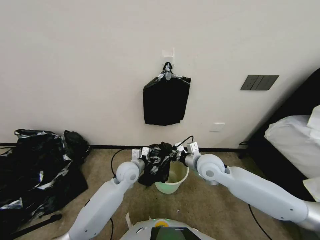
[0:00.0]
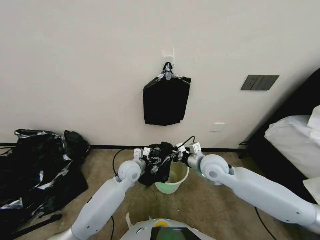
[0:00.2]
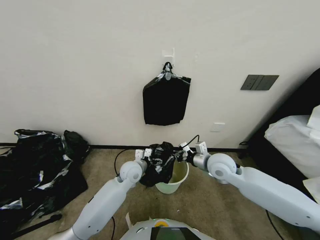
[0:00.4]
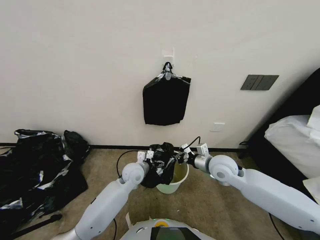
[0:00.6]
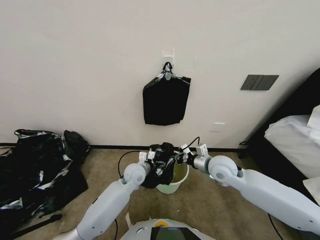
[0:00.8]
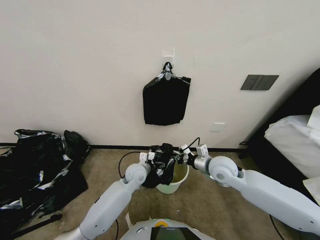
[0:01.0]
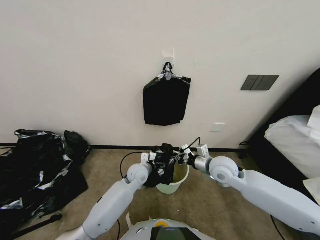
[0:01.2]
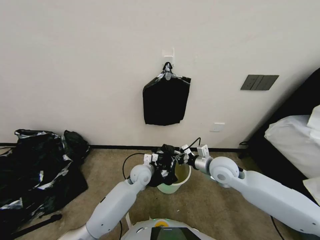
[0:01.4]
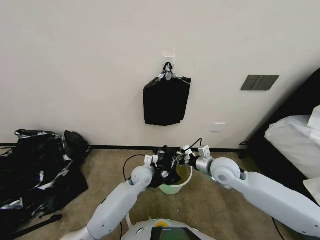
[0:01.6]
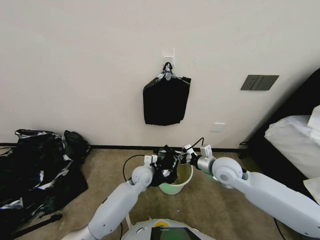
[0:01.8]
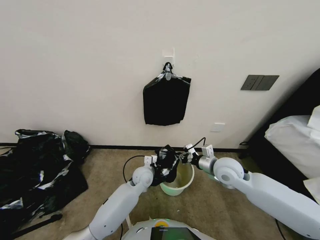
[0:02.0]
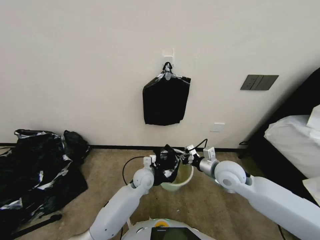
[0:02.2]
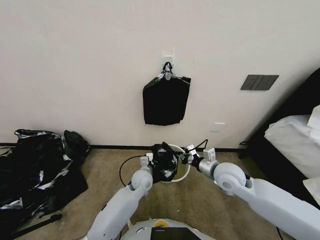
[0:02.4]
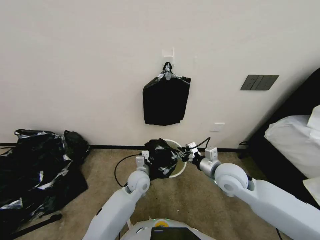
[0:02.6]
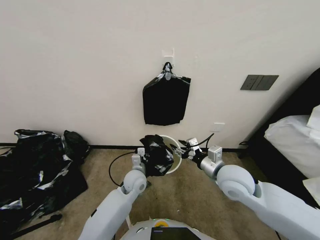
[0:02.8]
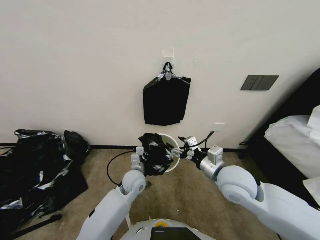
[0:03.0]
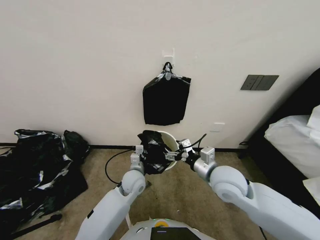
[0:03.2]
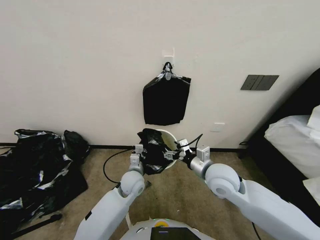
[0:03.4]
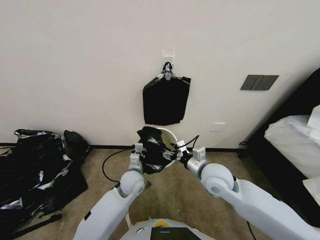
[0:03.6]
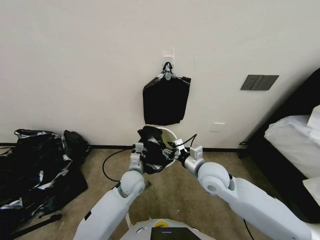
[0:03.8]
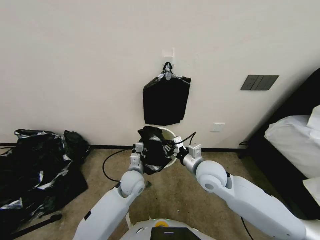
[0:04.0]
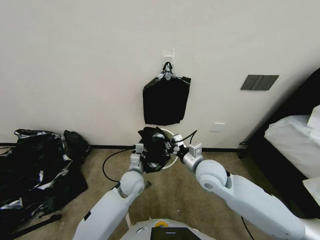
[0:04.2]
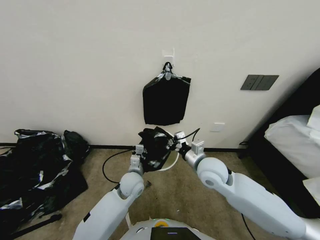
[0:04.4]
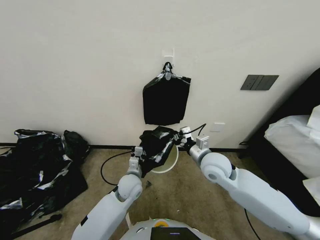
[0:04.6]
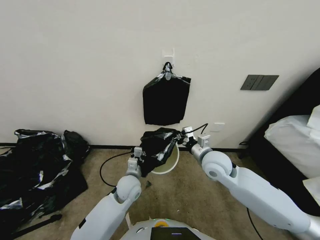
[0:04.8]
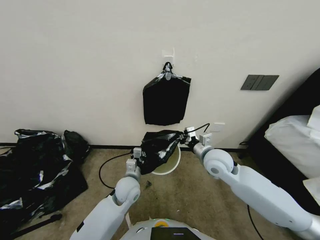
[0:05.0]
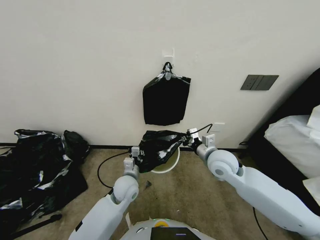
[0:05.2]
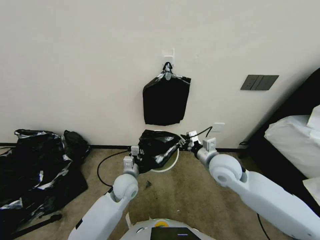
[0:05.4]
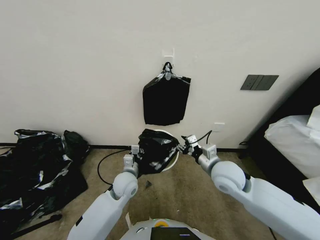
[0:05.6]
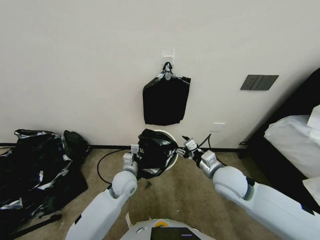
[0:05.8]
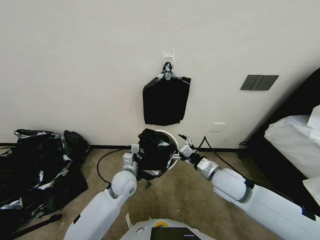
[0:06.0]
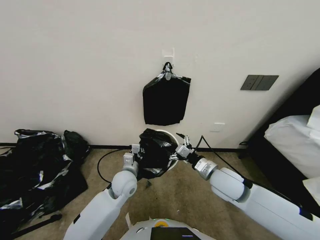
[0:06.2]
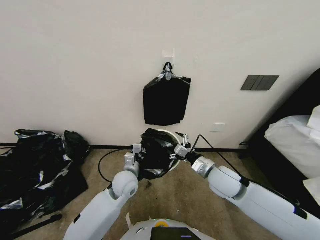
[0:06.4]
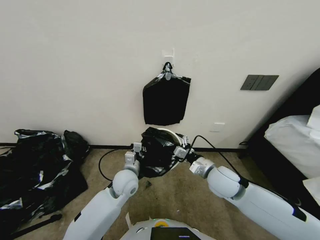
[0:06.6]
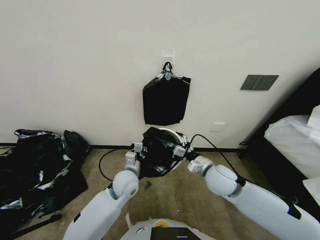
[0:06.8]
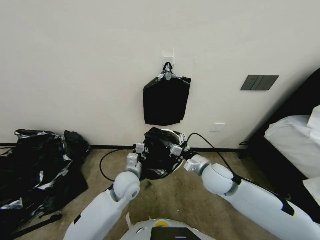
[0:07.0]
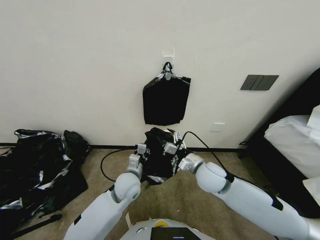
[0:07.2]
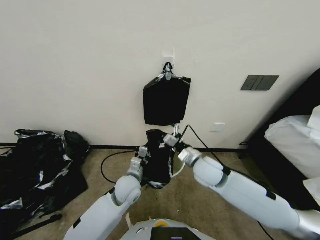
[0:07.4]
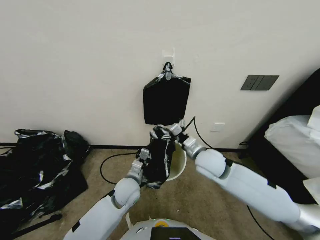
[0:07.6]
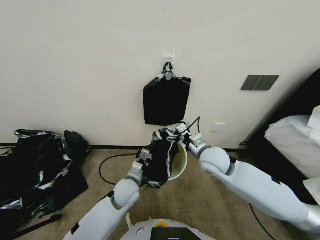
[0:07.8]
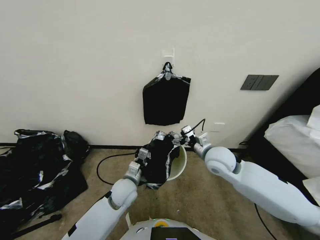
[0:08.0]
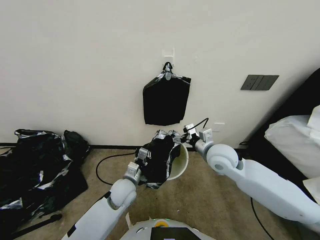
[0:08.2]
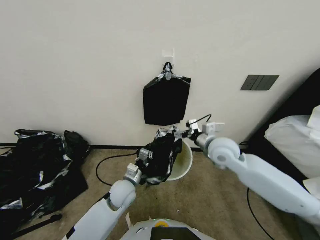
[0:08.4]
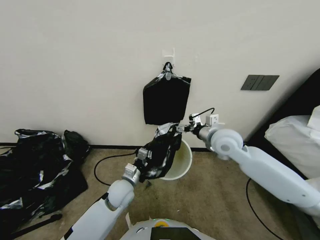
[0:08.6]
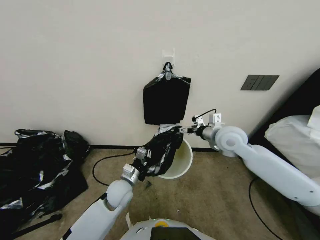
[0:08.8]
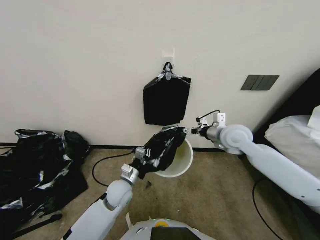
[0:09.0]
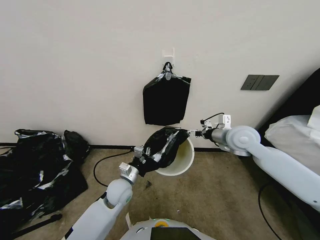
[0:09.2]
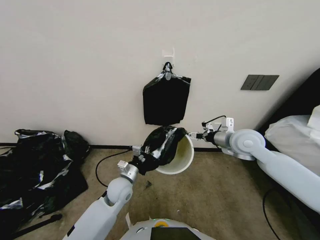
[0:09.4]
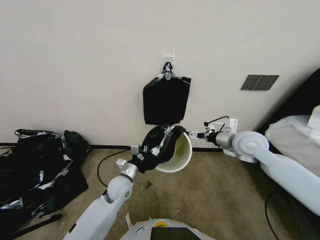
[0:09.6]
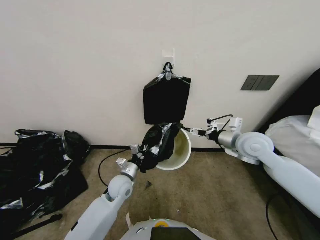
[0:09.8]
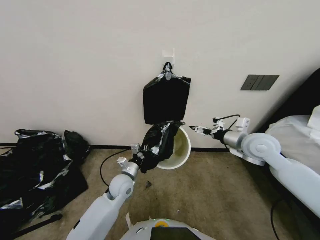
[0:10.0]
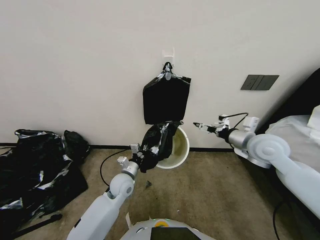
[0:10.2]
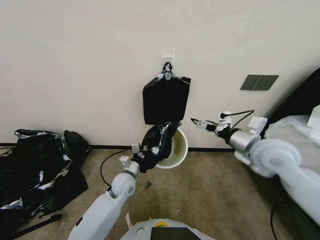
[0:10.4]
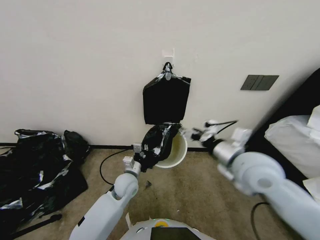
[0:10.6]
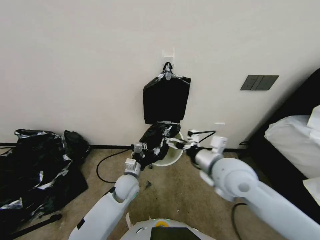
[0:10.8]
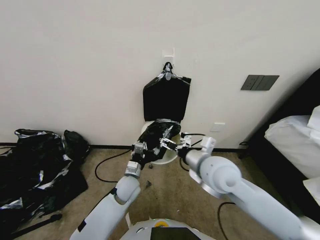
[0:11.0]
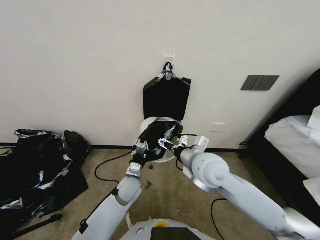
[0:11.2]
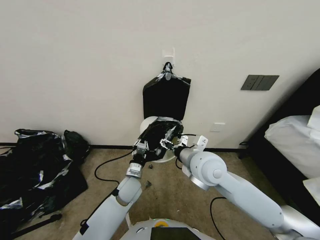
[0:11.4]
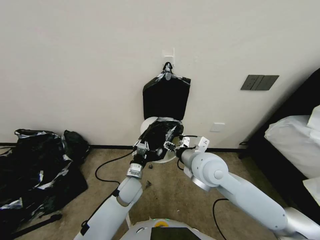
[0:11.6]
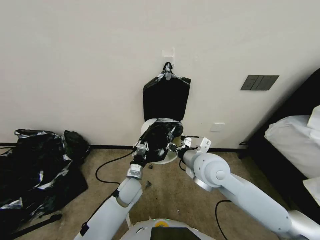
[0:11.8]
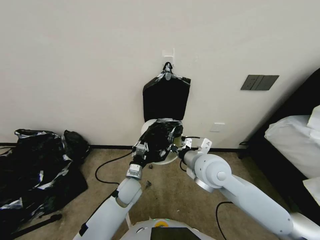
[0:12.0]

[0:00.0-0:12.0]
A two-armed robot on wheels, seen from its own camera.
Task of the whole recording: Place a trash bag onto the trash bin.
0:00.0 to 0:01.6: The grippers both shift to the right by about 5 cm. The left gripper closes its fingers.
0:01.6 to 0:03.0: The right gripper heads backward and upward, covering about 10 cm, and opens up, while the left gripper closes up.
0:03.0 to 0:04.4: The right gripper changes place by roughly 5 cm, and closes.
0:04.4 to 0:06.0: The right gripper is displaced to the right by some 5 cm, and opens.
0:06.0 to 0:07.6: The right gripper goes approximately 10 cm to the left and forward.
0:07.6 to 0:09.0: The right gripper moves to the right, upward and forward, roughly 15 cm.
0:09.0 to 0:10.4: The right gripper travels backward and to the right by about 10 cm.
0:10.4 to 0:12.0: The right gripper goes about 20 cm to the left, and closes.

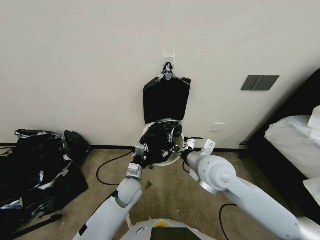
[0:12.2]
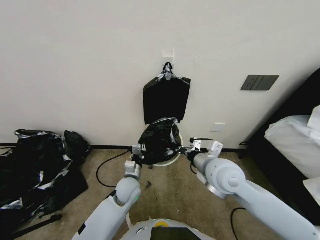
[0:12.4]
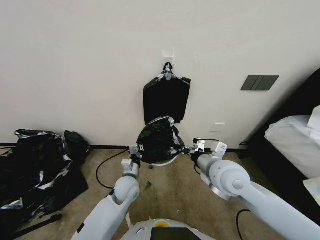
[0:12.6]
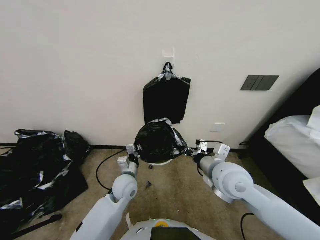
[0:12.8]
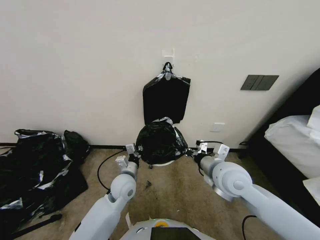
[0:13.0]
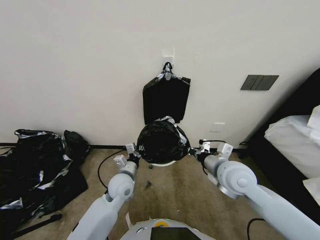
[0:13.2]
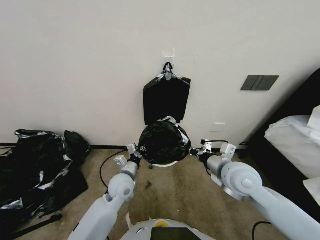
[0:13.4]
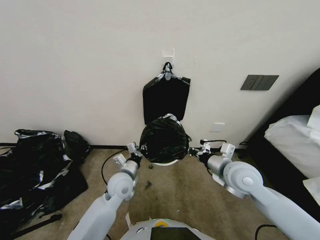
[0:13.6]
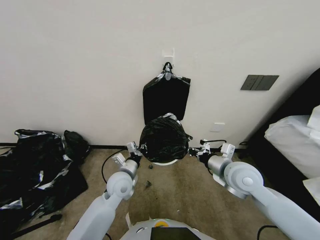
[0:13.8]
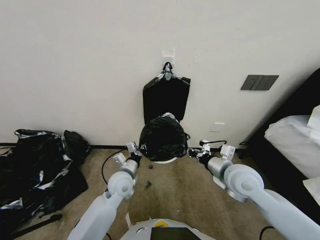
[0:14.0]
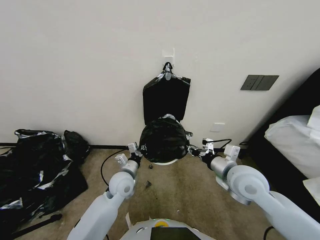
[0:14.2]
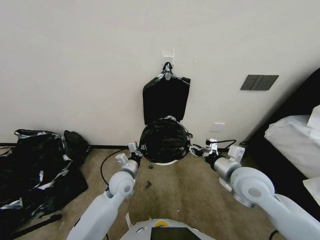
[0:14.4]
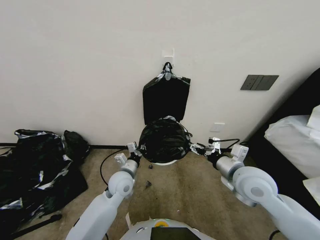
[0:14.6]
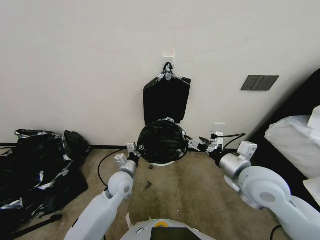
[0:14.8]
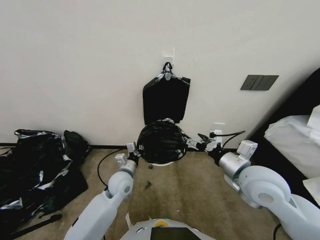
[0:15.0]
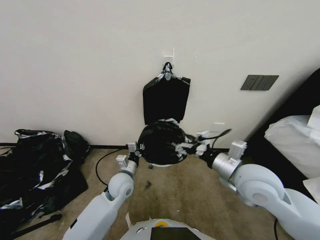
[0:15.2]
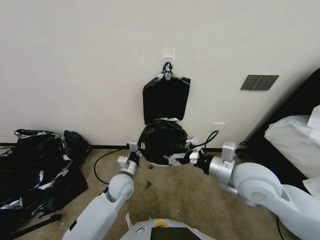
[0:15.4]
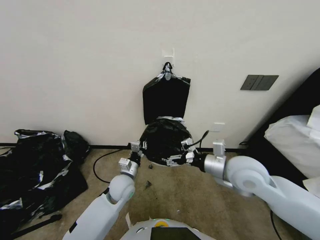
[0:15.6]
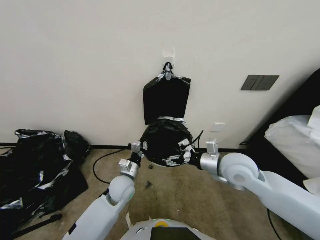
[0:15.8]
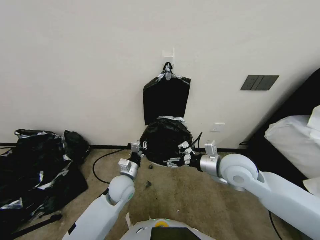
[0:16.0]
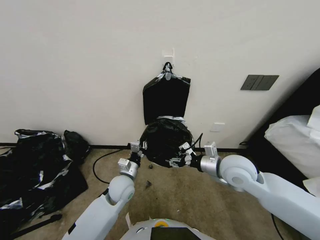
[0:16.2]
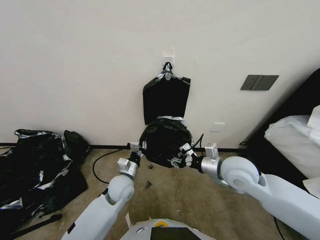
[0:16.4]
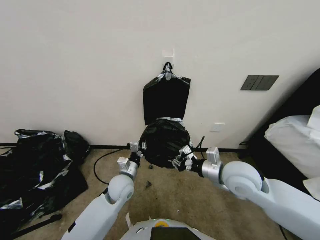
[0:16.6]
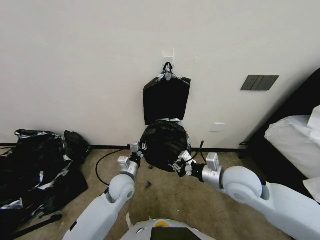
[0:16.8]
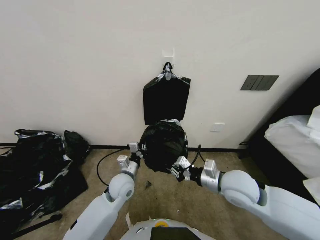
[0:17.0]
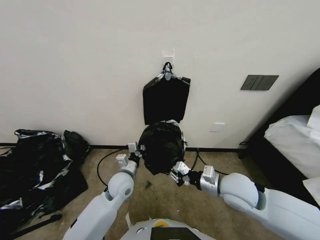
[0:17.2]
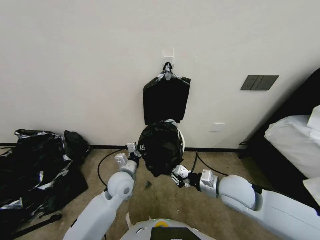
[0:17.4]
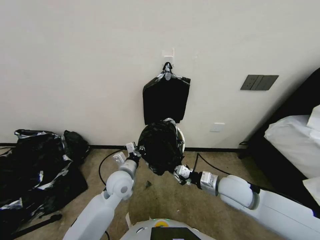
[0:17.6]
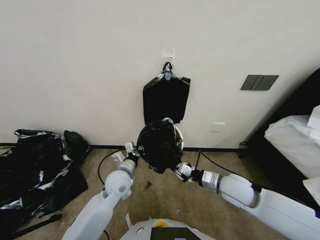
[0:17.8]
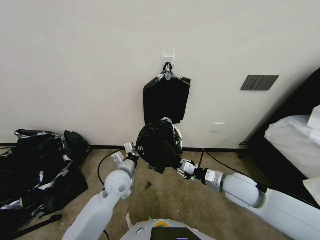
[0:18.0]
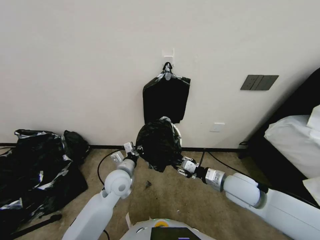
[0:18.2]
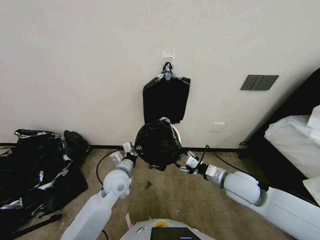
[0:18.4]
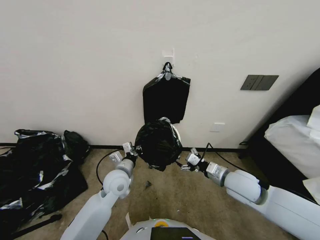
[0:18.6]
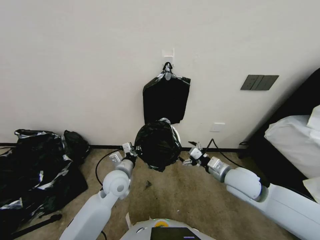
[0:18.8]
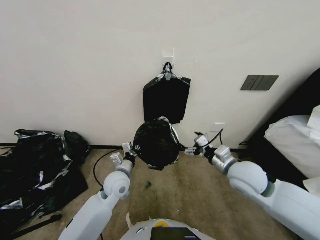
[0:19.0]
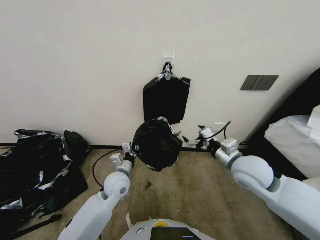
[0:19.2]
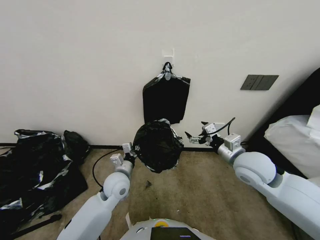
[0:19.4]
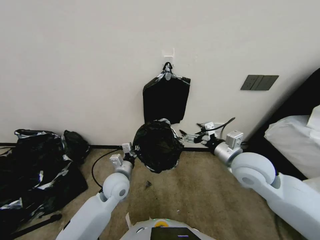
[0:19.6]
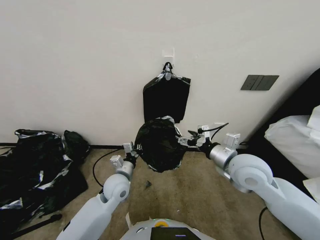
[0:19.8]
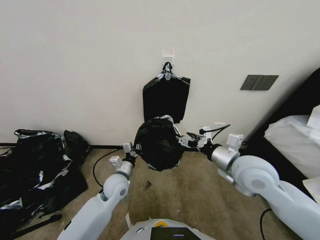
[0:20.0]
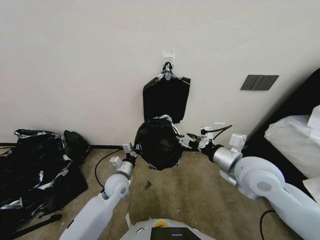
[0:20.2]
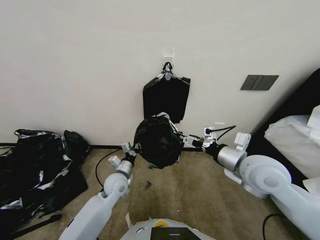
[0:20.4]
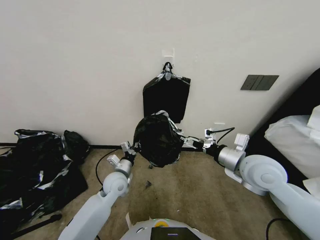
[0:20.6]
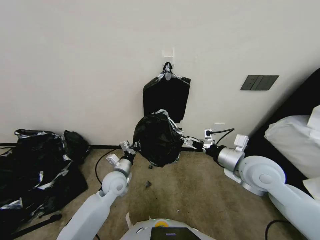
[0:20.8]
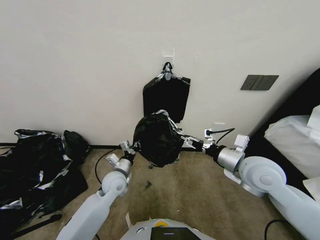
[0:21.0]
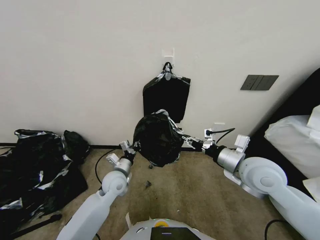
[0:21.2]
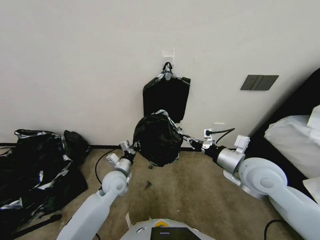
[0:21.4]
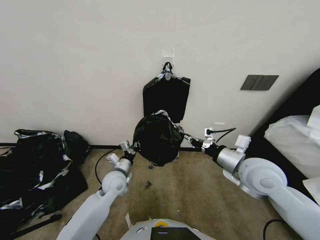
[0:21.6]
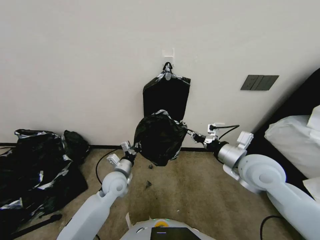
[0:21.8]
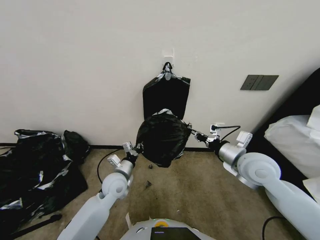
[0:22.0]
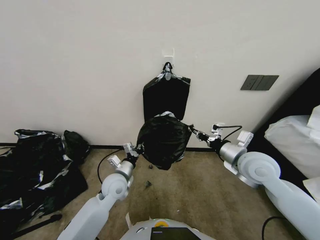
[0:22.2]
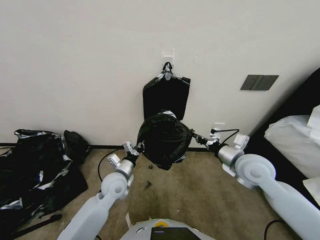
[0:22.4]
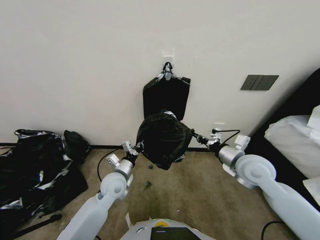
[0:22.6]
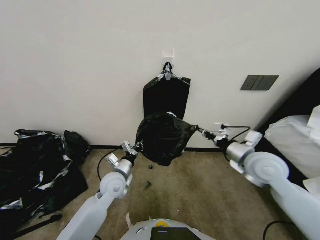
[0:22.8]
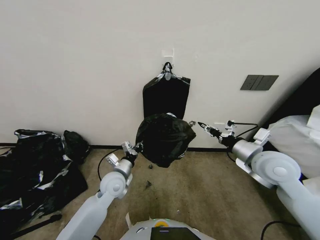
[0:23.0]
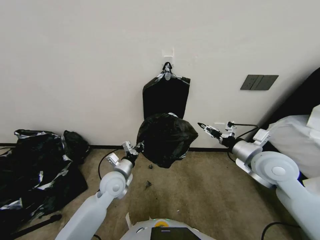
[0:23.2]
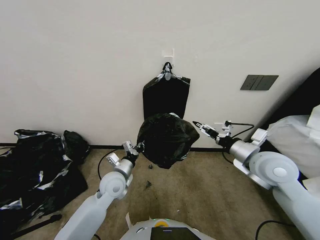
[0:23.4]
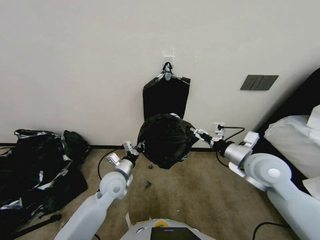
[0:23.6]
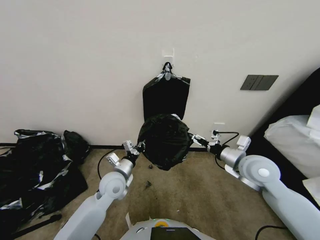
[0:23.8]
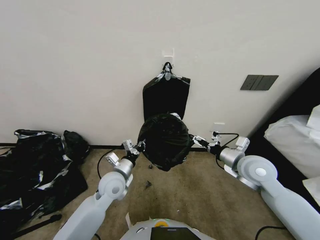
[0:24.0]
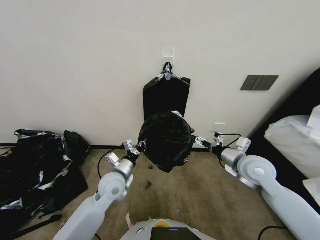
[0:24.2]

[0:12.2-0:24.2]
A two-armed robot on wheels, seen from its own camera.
Task of the whole recording: Place a trash bag onto the trash bin.
0:12.2 to 0:13.8: The right gripper goes some 10 cm to the right; the left gripper is displaced upward by approximately 5 cm.
0:13.8 to 0:15.2: The right gripper ends up approximately 5 cm from where it was, and opens.
0:15.2 to 0:16.6: The right gripper ends up about 5 cm from where it was, and closes up.
0:16.6 to 0:18.2: The right gripper heads downward, covering approximately 5 cm.
0:18.2 to 0:19.8: The right gripper travels upward by some 10 cm, and opens up.
0:19.8 to 0:21.2: The right gripper closes up.
0:21.2 to 0:22.6: The right gripper closes.
0:22.6 to 0:24.2: The right gripper opens up.
